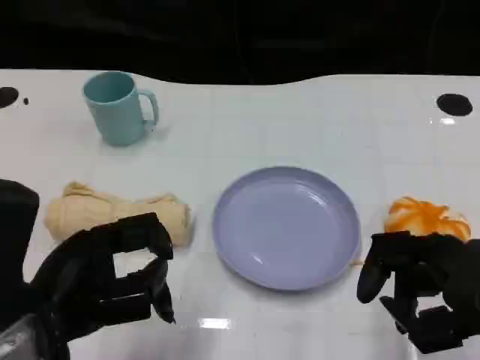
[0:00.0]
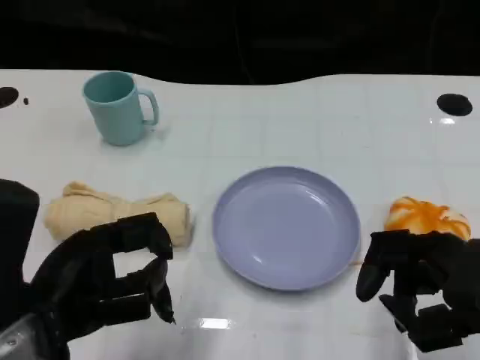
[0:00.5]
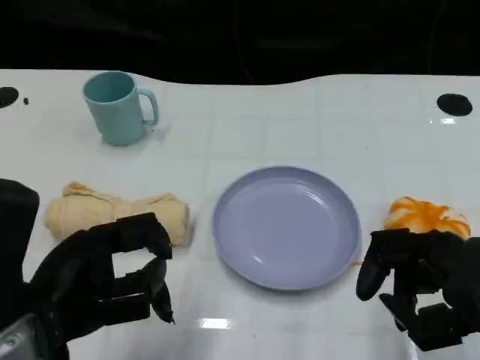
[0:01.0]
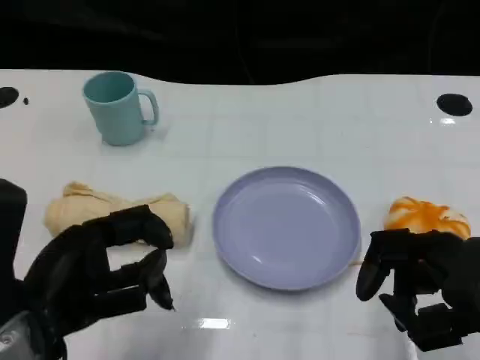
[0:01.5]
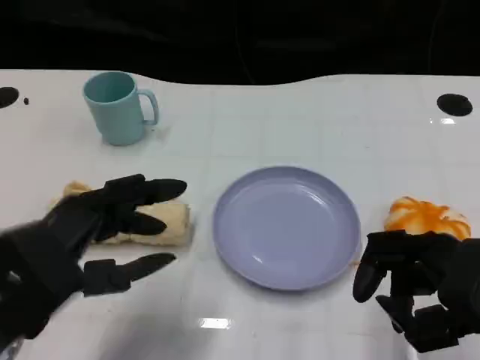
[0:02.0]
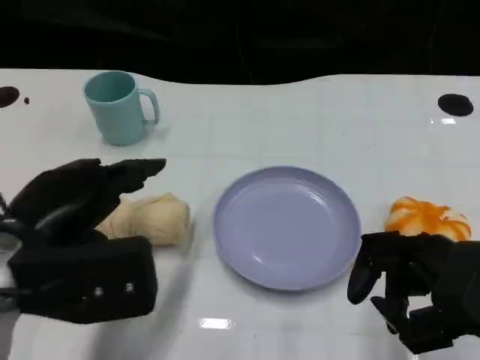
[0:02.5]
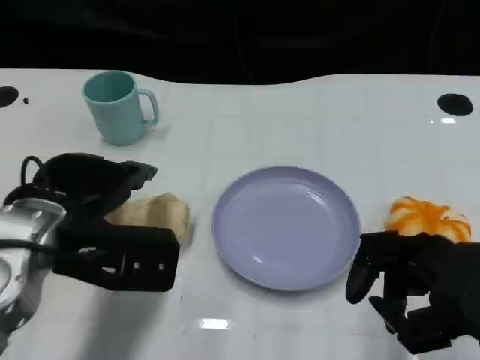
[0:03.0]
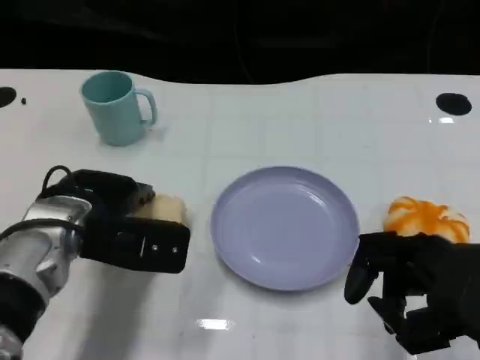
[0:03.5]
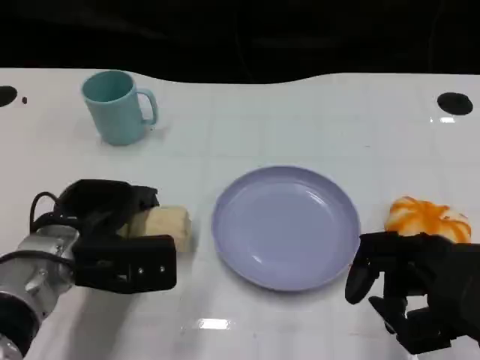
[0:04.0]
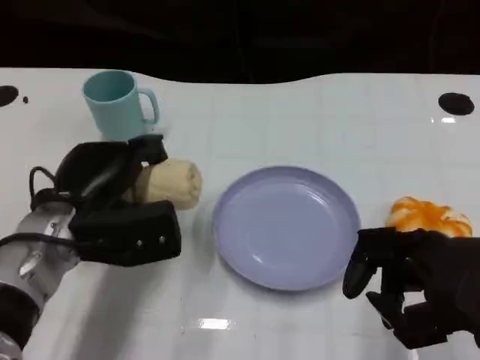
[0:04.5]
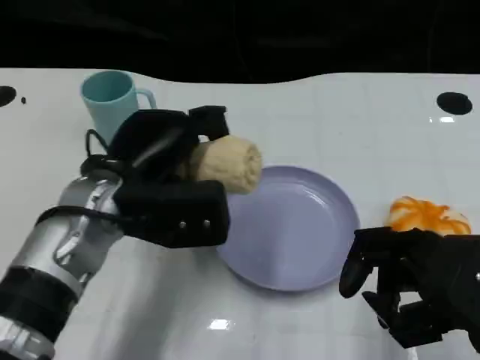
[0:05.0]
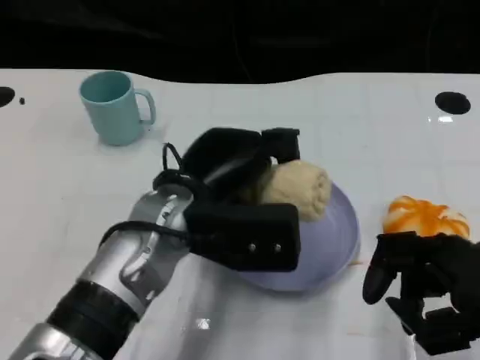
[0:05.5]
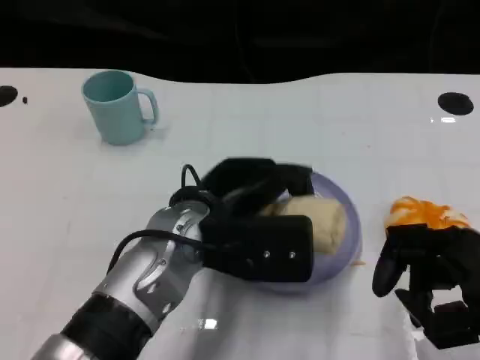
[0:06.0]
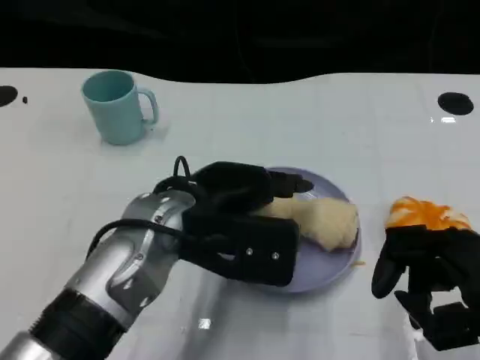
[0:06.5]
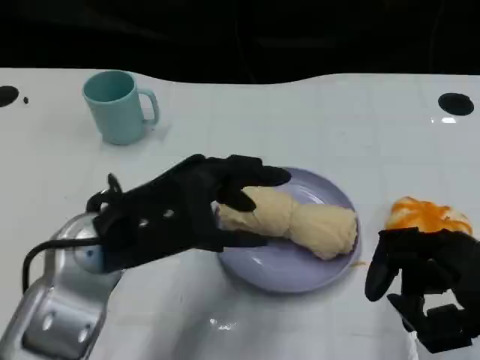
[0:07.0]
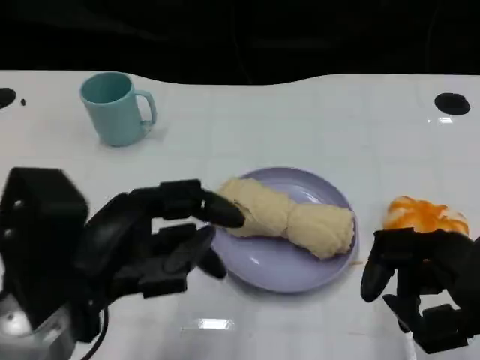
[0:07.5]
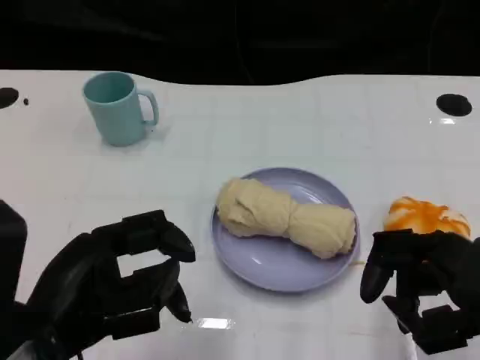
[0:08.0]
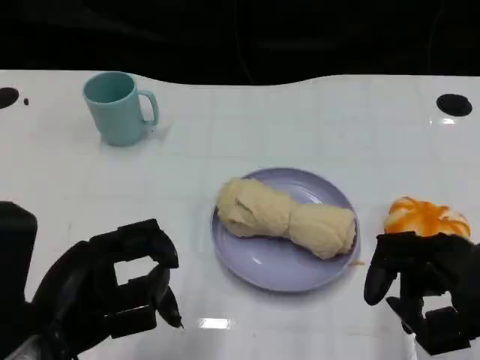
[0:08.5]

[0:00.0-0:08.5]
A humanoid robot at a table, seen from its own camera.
Task of the whole recording: Grasp the towel on the left side of the plate with the left hand and place it into the plate.
0:02.0 to 0:04.0: The left hand travels forward and downward by approximately 15 cm.
0:04.0 to 0:06.5: The left hand heads to the right and upward, covering about 15 cm.
0:06.5 to 0:08.5: The left hand is displaced to the left and backward by roughly 15 cm.

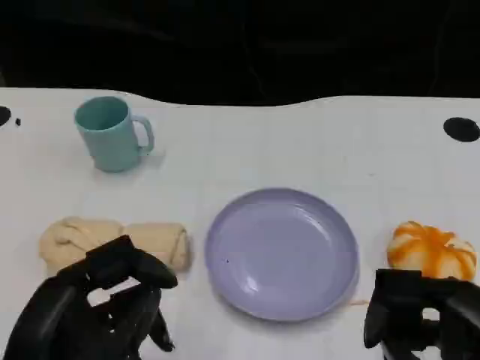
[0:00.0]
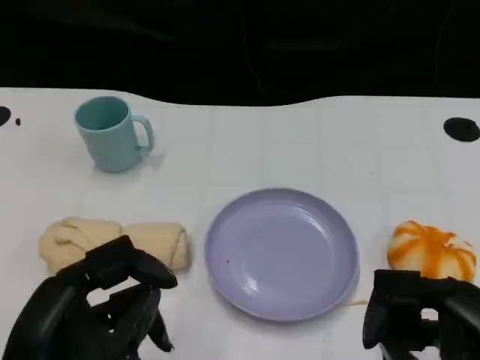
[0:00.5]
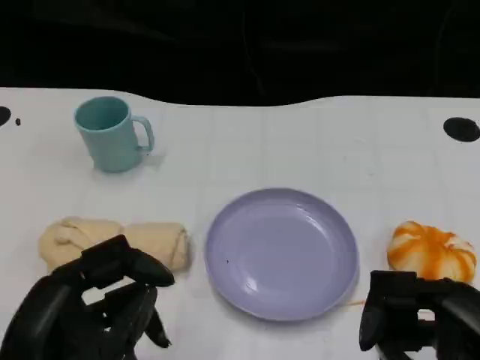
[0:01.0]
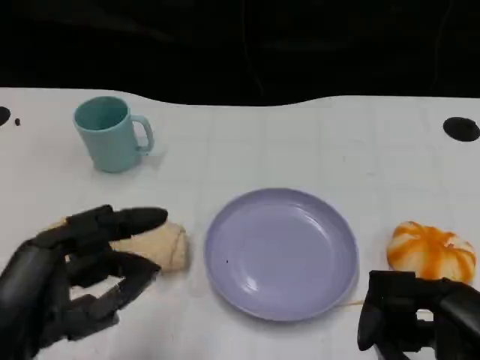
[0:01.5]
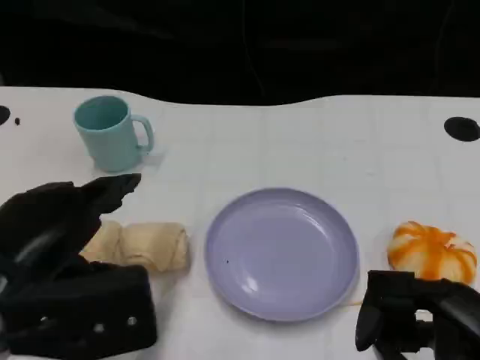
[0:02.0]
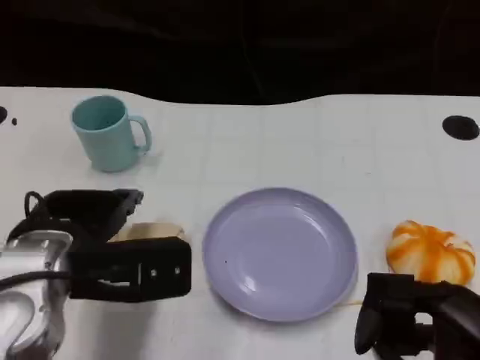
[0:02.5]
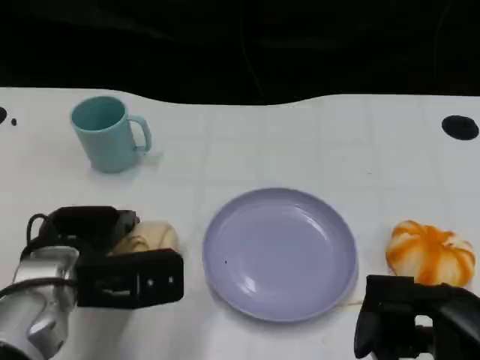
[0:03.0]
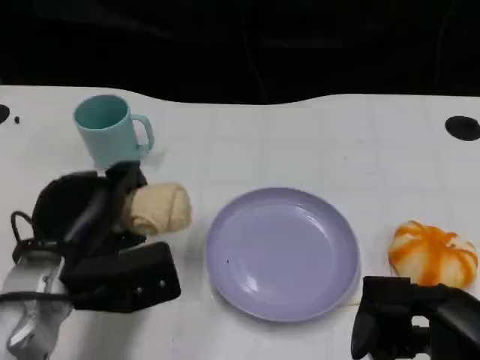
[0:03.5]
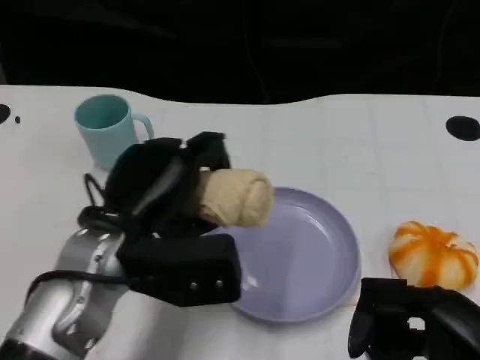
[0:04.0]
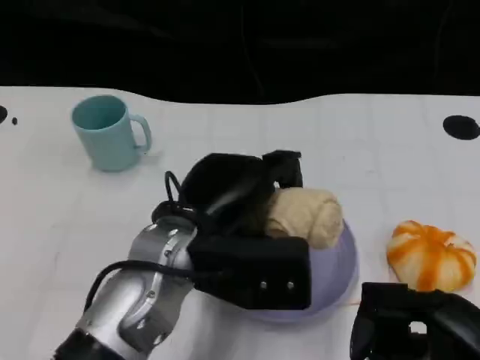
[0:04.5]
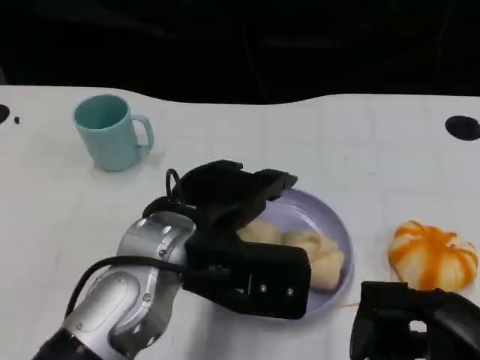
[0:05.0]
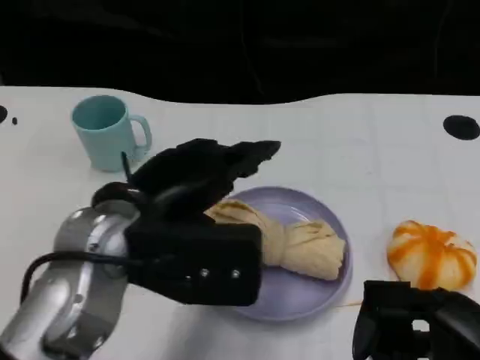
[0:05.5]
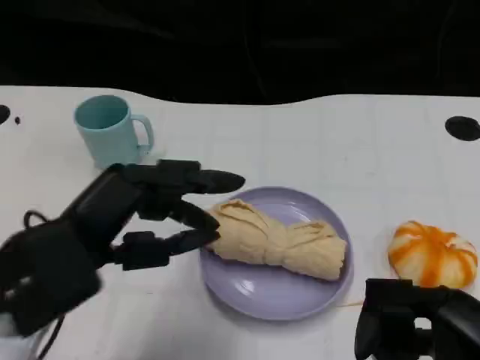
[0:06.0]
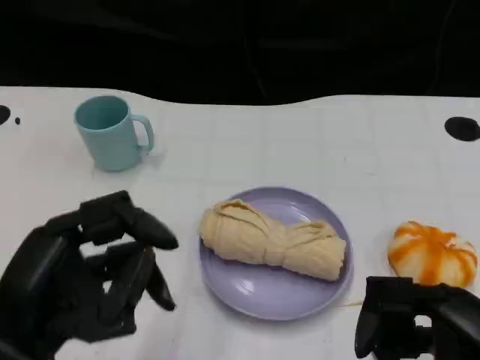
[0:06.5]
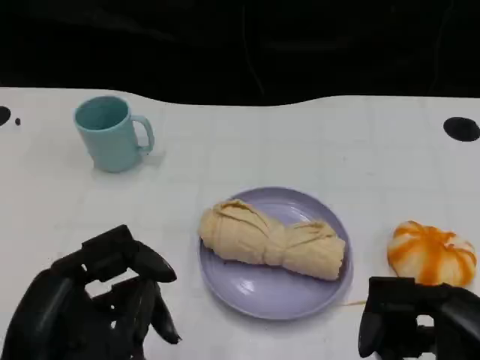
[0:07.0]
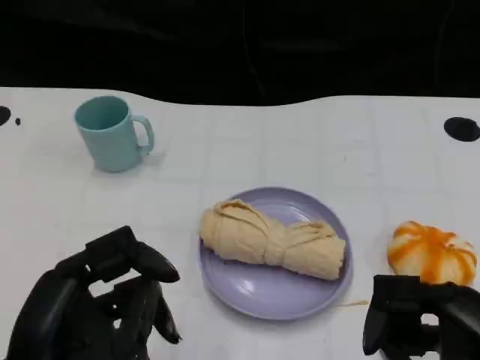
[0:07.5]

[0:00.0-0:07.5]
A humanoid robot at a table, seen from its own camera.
Task of the whole recording: Grasp the towel on the left side of the plate with the left hand and place it into the plate.
0:00.0 to 0:02.0: The left hand moves forward, approximately 5 cm.
0:02.0 to 0:04.0: The left hand moves to the right and forward, roughly 10 cm.
0:04.0 to 0:05.5: The left hand moves upward, roughly 5 cm.
0:05.5 to 0:07.5: The left hand is displaced backward, to the left and downward by roughly 15 cm.
